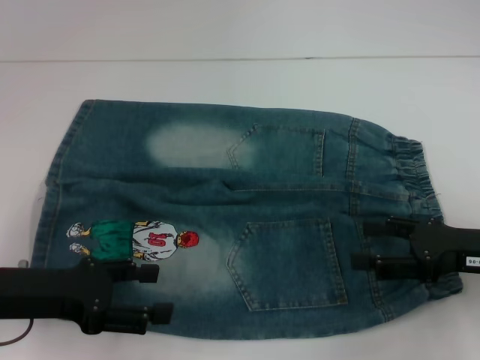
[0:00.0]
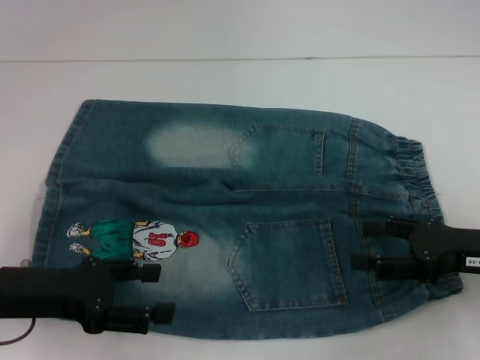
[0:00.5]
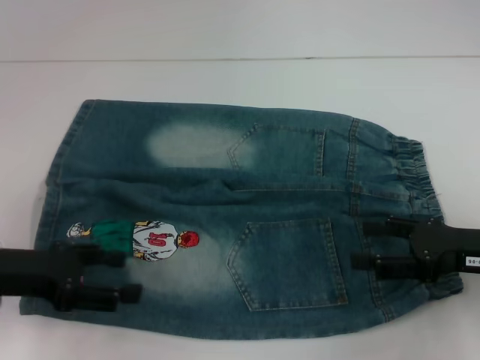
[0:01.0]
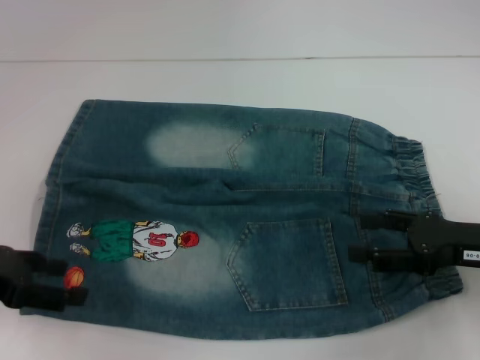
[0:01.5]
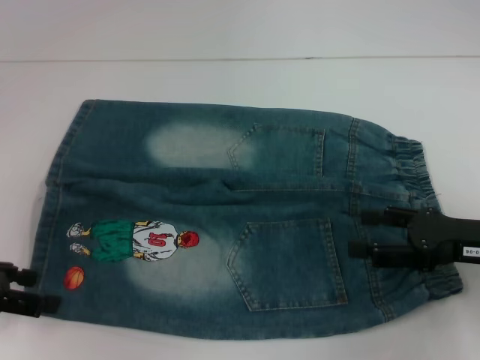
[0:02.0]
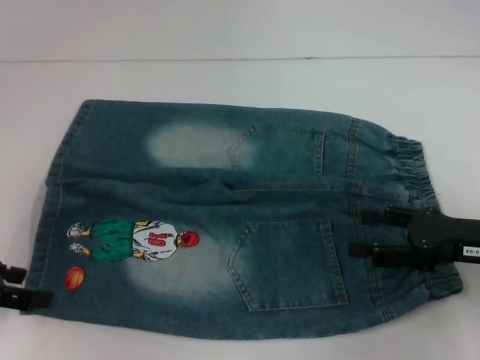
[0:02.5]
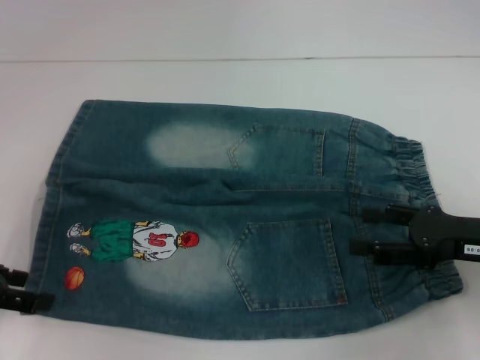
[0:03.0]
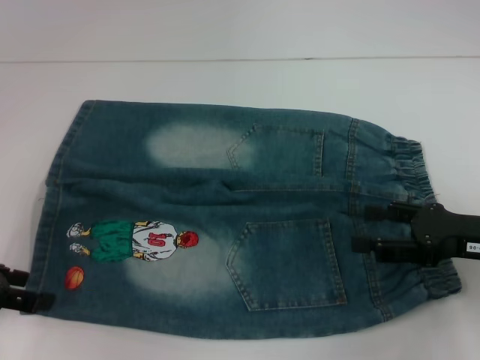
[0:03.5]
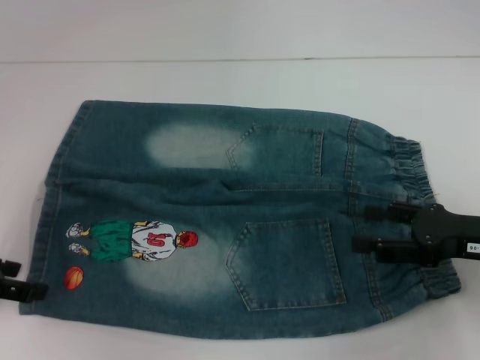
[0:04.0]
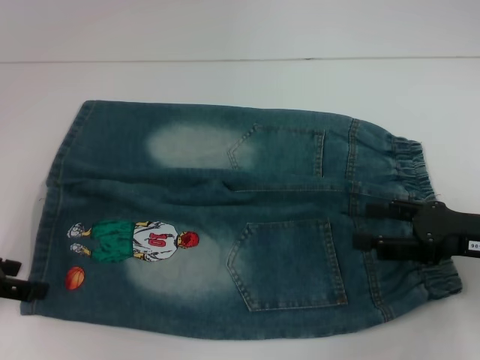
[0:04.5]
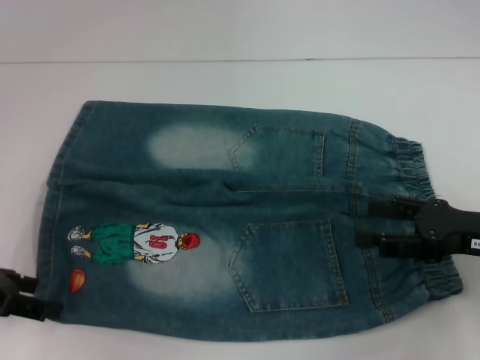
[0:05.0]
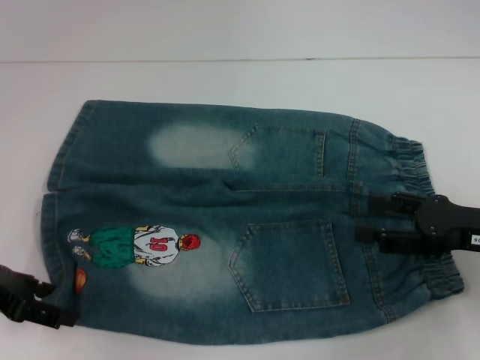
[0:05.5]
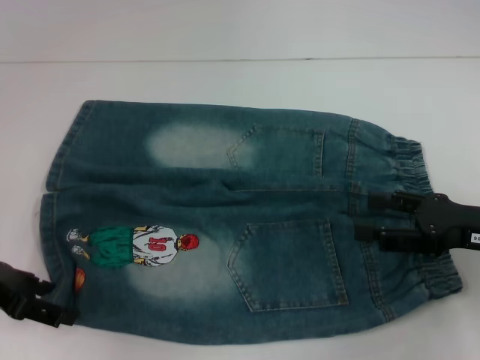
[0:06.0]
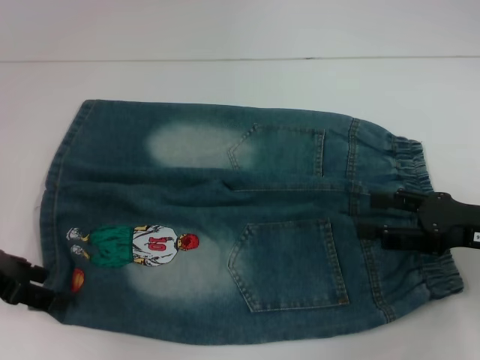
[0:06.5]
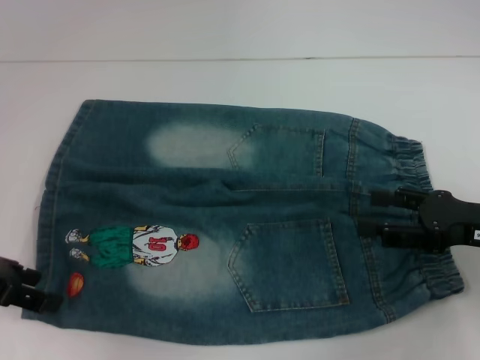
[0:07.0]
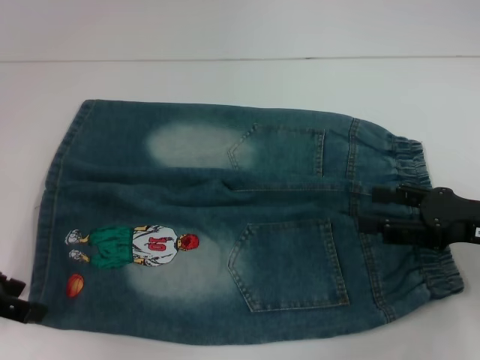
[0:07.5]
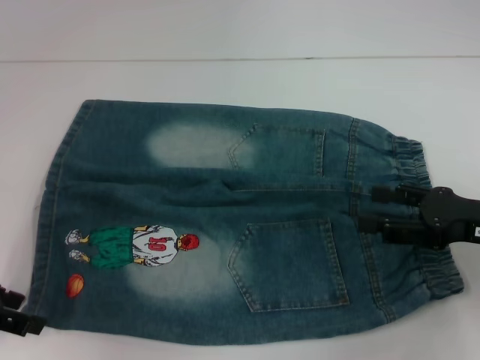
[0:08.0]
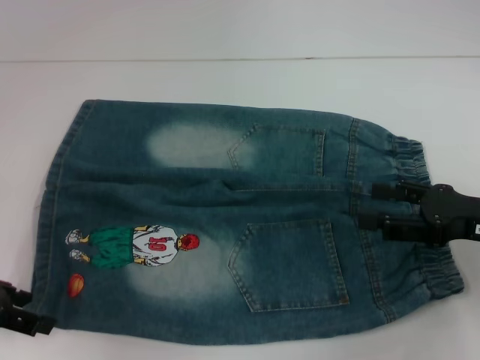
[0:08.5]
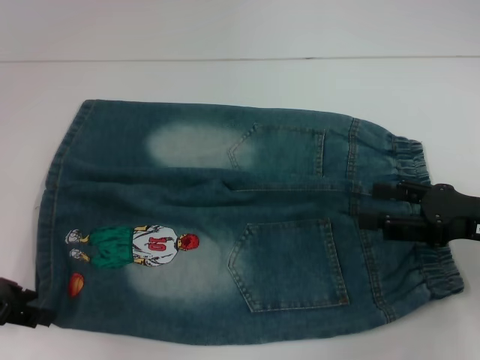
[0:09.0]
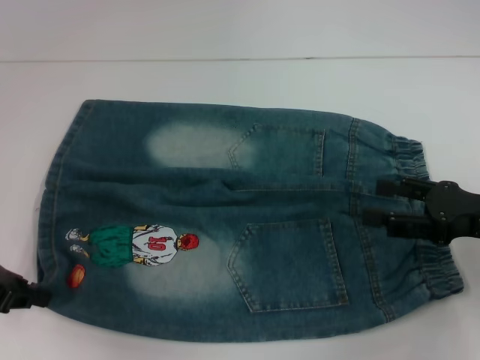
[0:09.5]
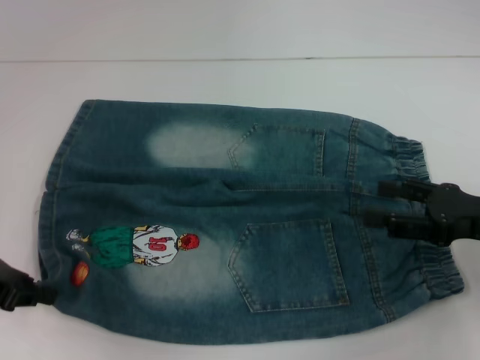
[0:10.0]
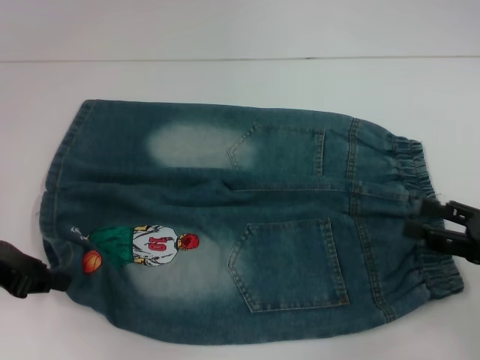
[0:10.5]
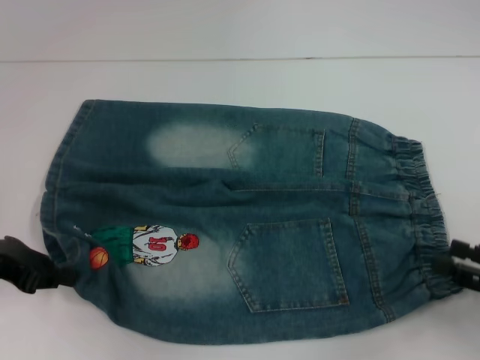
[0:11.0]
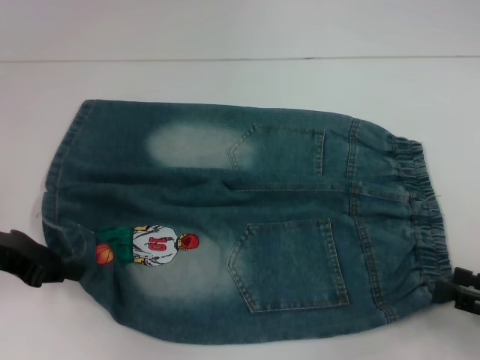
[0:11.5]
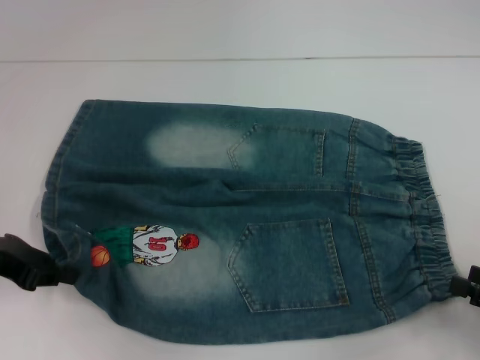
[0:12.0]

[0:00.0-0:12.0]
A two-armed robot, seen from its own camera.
Step, 0:00.0 to 0:09.0: Grab the lower left pant leg with your left hand.
0:00.0 to 0:02.0: The left gripper is displaced to the left by approximately 10 cm.
0:02.0 to 0:08.0: The grippers make only small movements.
0:08.0 to 0:10.0: The left gripper closes up.
0:10.0 to 0:12.0: The right gripper heads backward and to the right, covering about 10 cm.

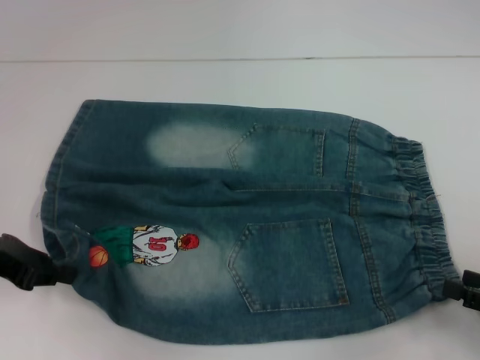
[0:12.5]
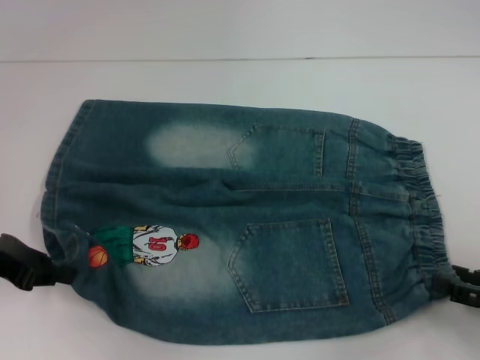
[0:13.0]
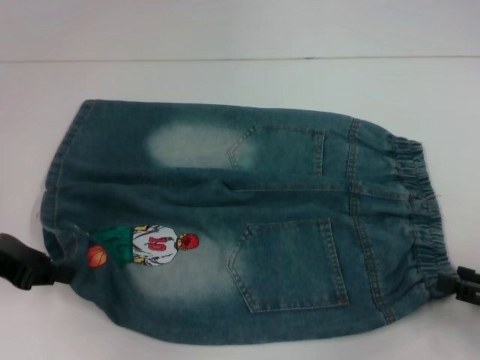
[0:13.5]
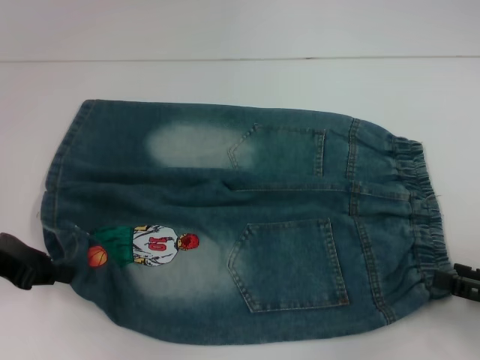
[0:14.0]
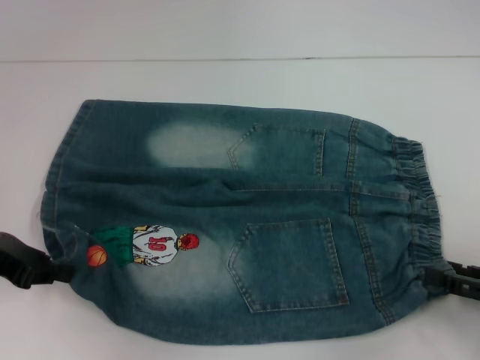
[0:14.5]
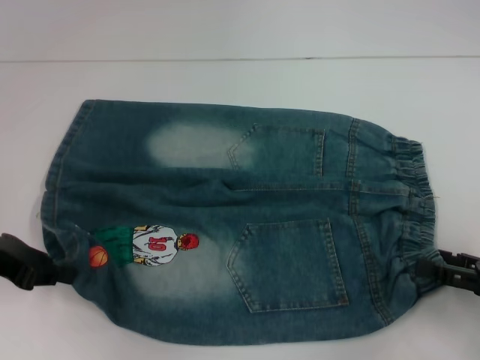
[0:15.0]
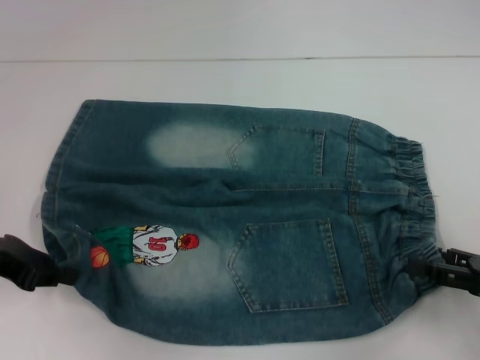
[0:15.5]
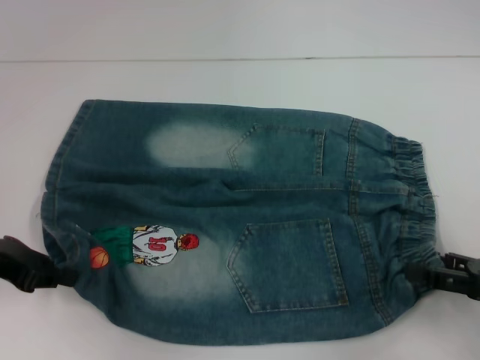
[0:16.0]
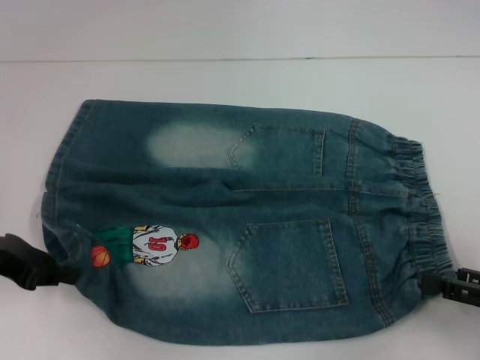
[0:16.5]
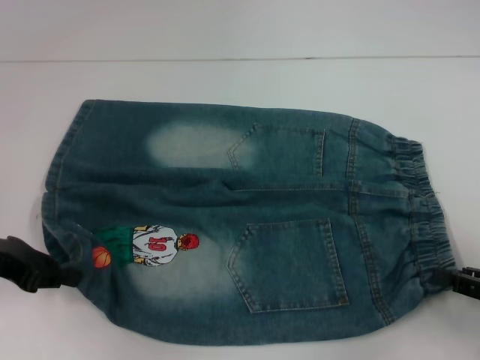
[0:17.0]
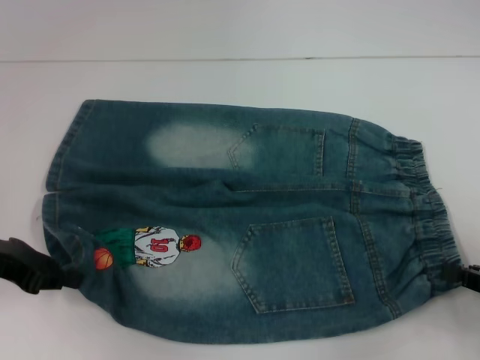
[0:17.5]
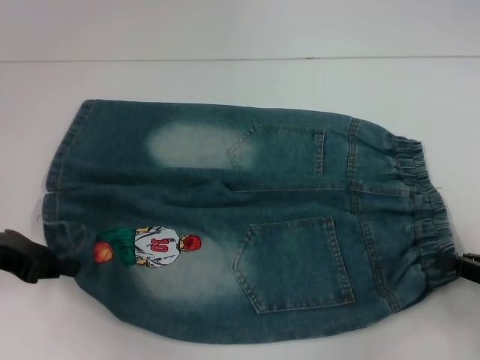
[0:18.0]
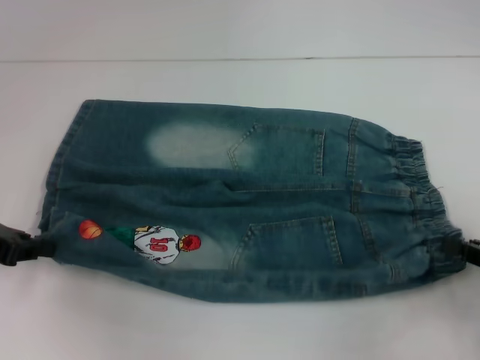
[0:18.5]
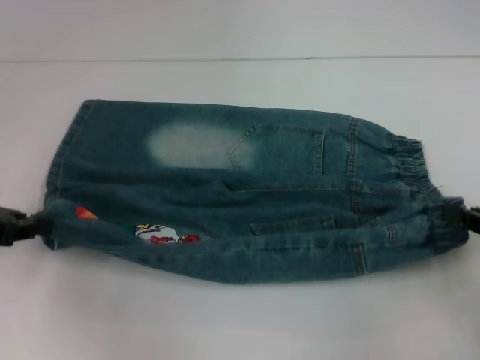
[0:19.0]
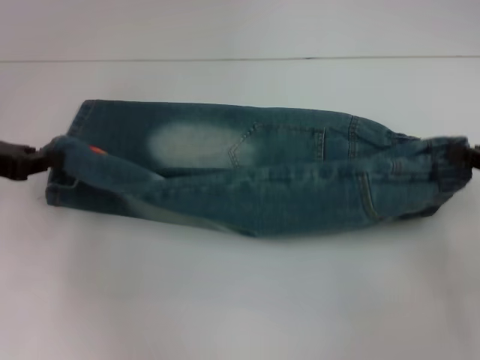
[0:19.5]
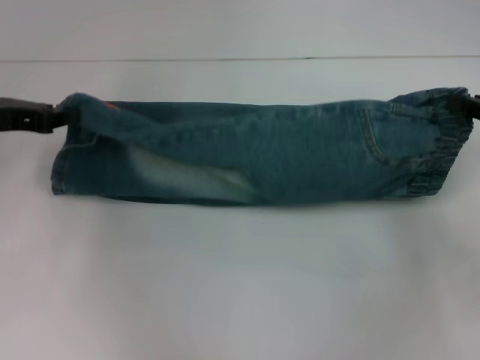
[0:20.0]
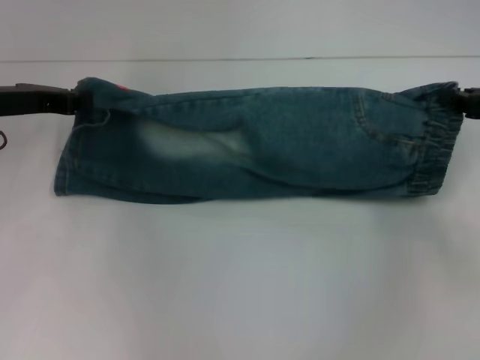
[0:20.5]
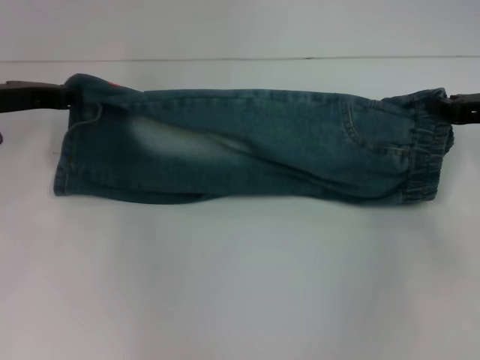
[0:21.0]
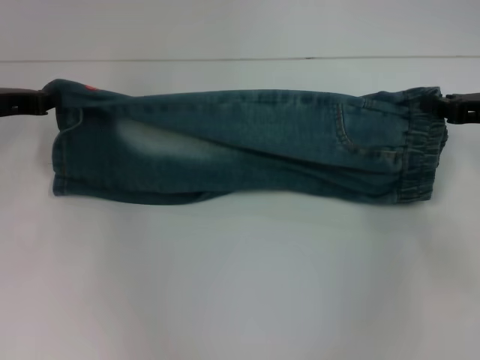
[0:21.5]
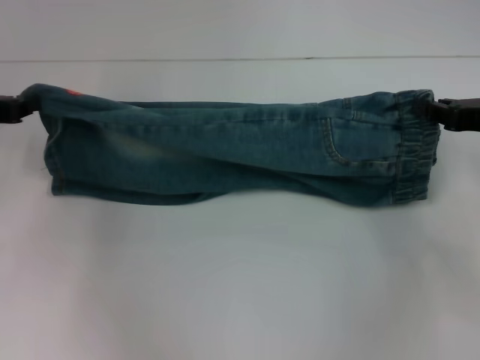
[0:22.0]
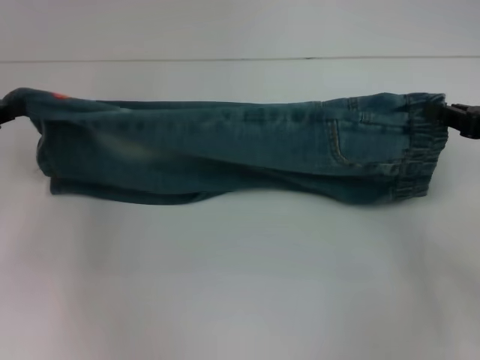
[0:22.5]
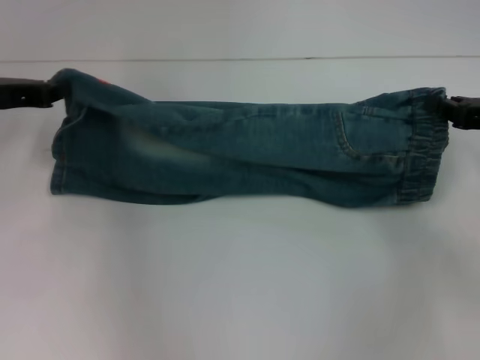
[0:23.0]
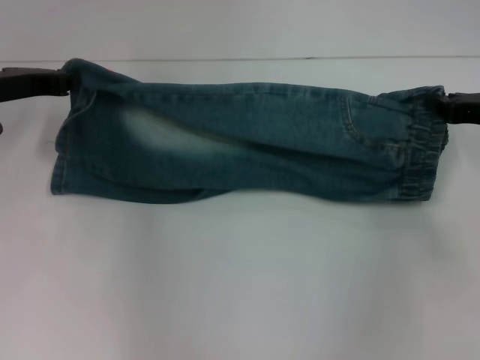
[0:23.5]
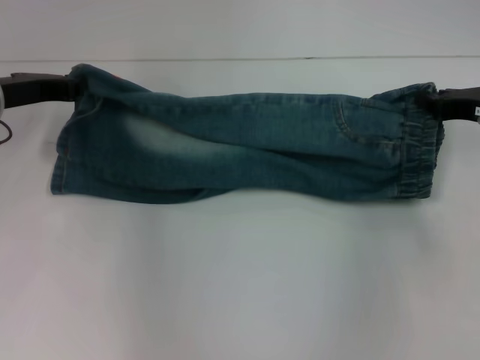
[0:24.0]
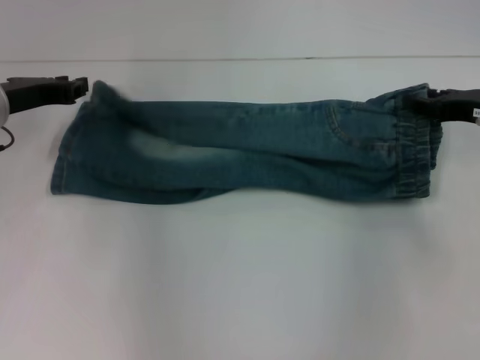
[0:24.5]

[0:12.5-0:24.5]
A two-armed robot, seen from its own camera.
0:12.5 to 0:16.5: The grippers stay close to where they were, moving slightly.
0:16.5 to 0:18.5: The right gripper closes up.
0:18.5 to 0:20.5: The right gripper travels forward and upward by roughly 15 cm; the left gripper moves forward and to the right, roughly 10 cm.
0:20.5 to 0:22.5: The left gripper travels backward and to the left by approximately 10 cm.
0:22.5 to 0:24.5: The right gripper goes roughly 5 cm forward, while the left gripper is displaced to the right and forward by roughly 10 cm.

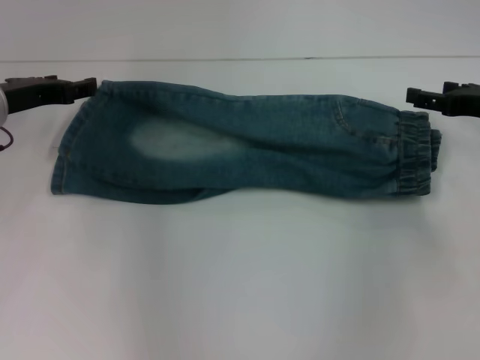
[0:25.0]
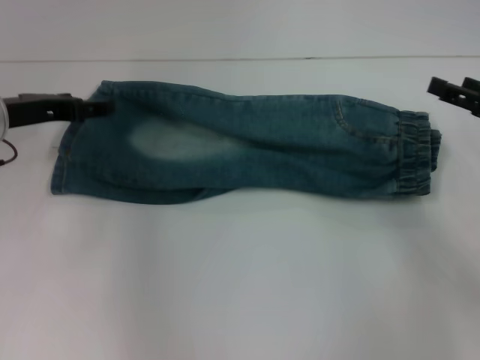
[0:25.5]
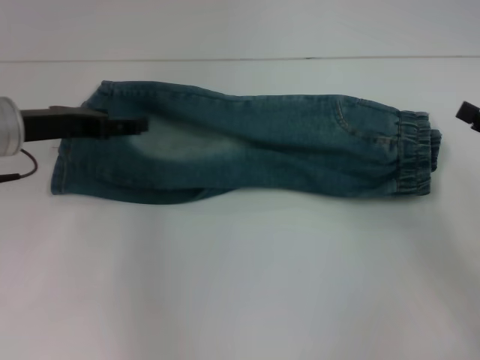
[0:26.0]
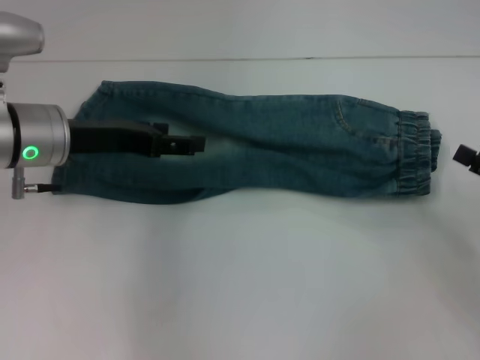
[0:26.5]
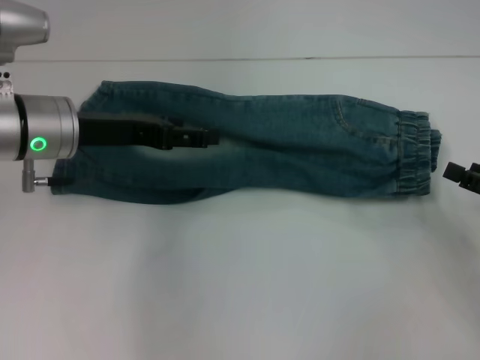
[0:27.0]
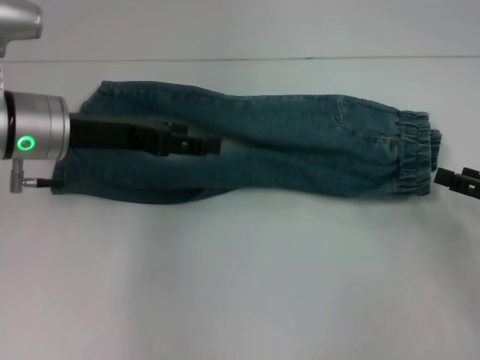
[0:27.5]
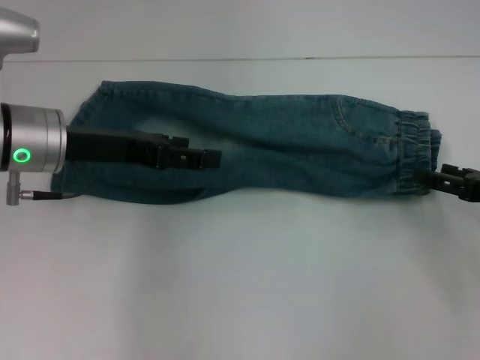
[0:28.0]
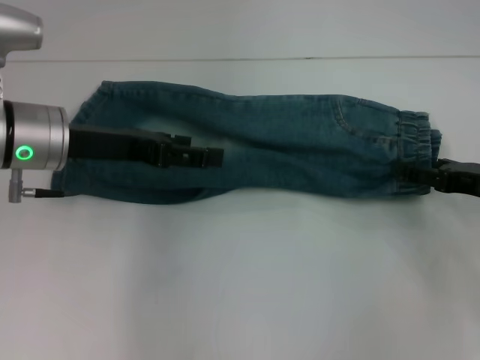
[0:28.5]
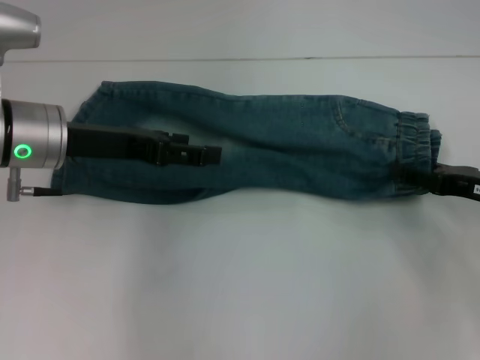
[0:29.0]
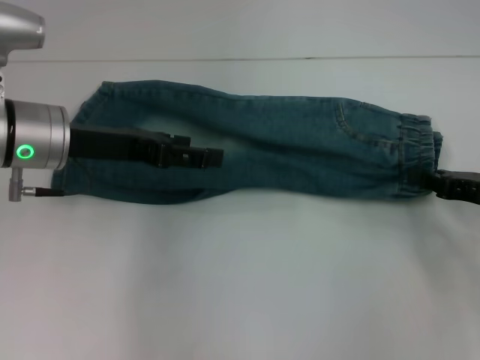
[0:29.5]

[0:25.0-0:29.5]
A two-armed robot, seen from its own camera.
0:25.0 to 0:27.0: The left gripper shifts approximately 5 cm to the right. The right gripper heads backward, covering about 10 cm.
0:27.0 to 0:29.5: The right gripper moves about 5 cm, and closes its fingers.
